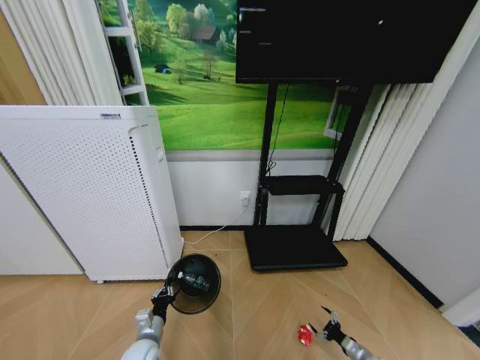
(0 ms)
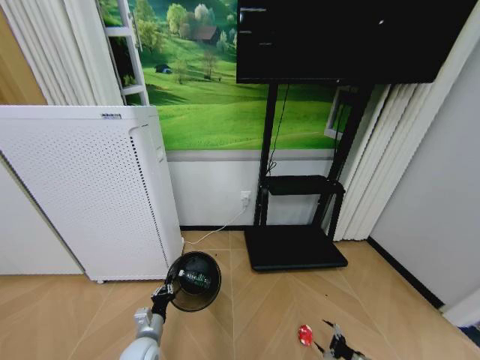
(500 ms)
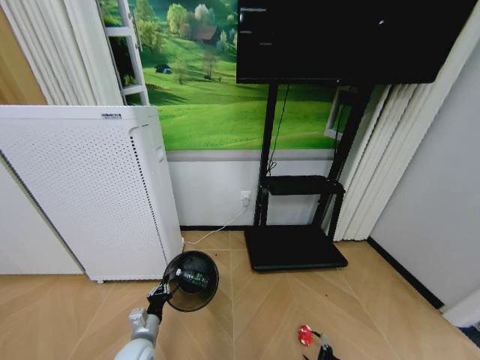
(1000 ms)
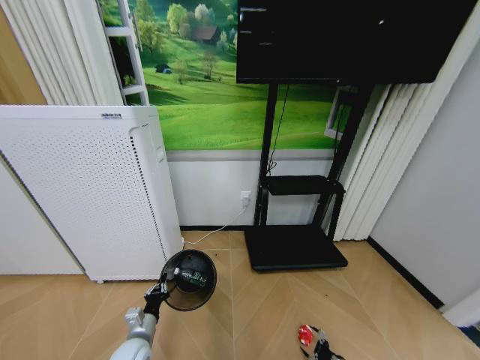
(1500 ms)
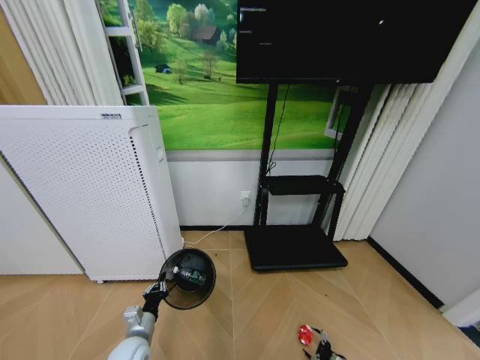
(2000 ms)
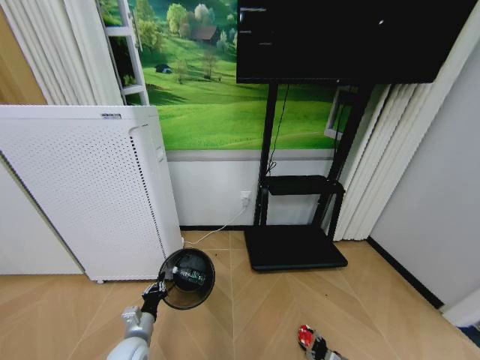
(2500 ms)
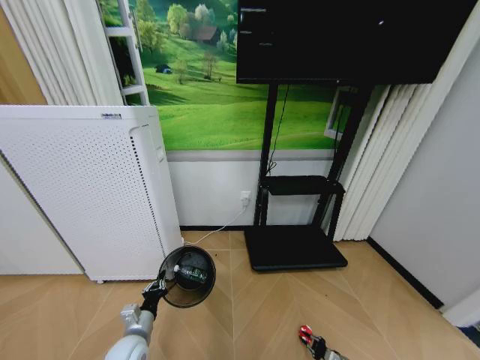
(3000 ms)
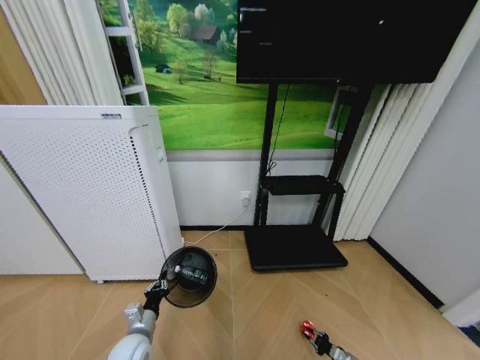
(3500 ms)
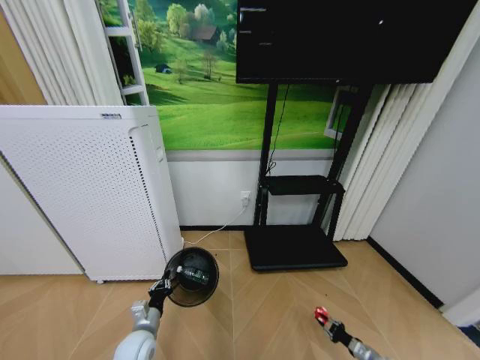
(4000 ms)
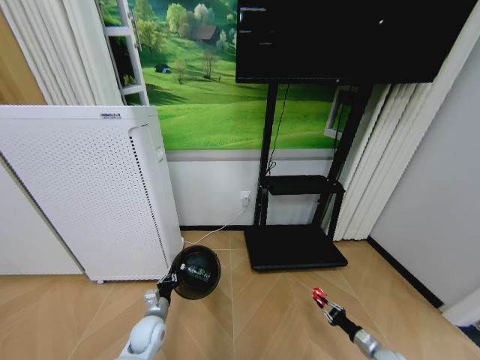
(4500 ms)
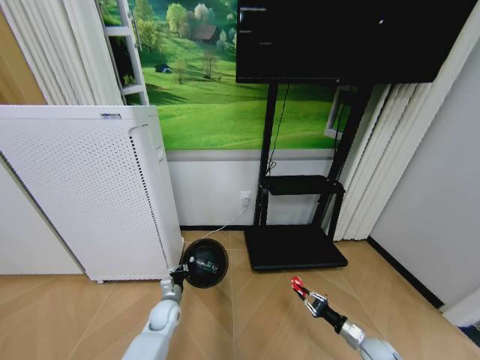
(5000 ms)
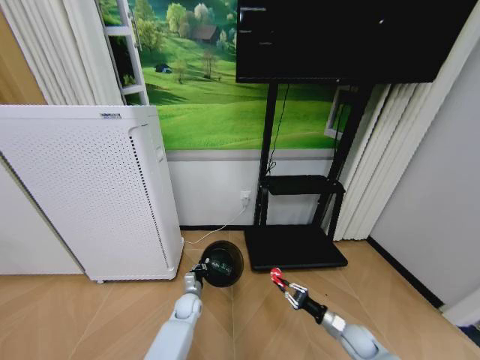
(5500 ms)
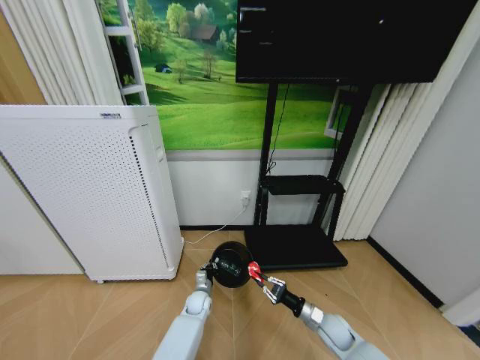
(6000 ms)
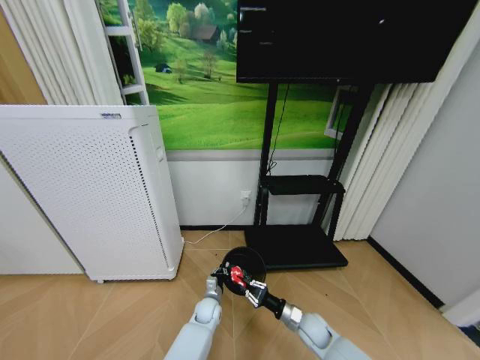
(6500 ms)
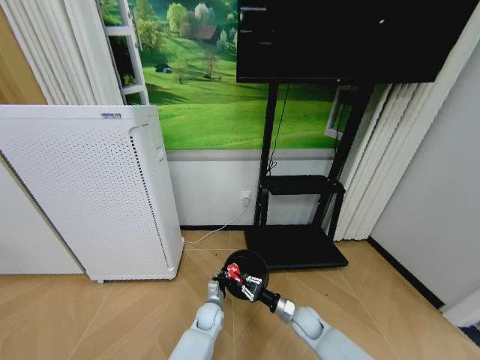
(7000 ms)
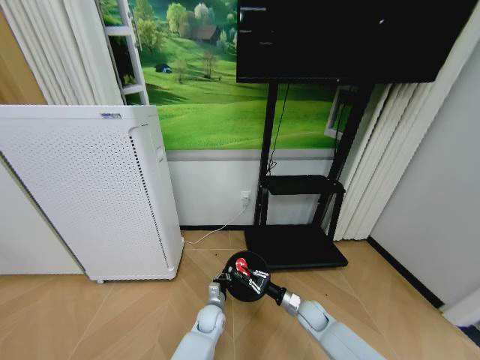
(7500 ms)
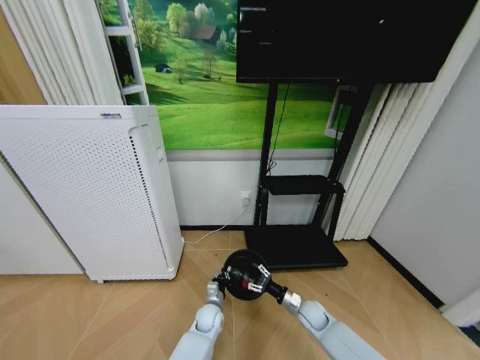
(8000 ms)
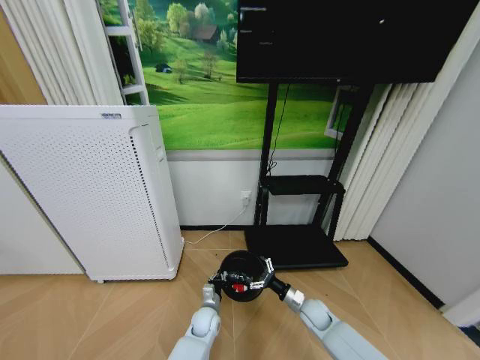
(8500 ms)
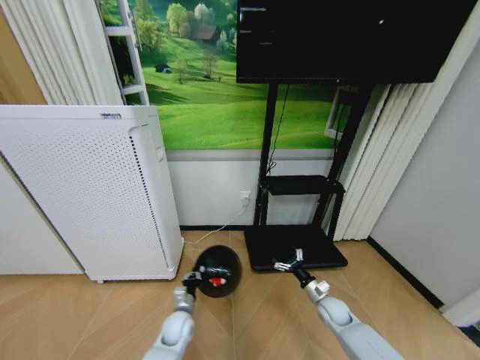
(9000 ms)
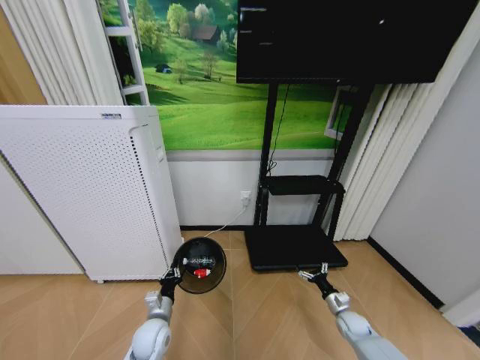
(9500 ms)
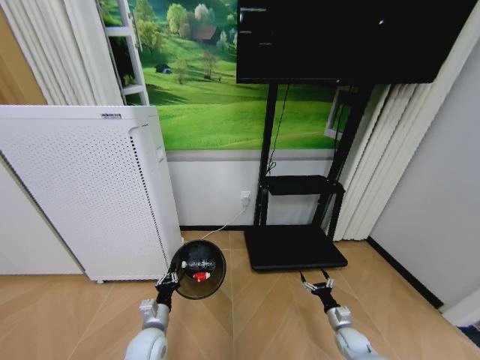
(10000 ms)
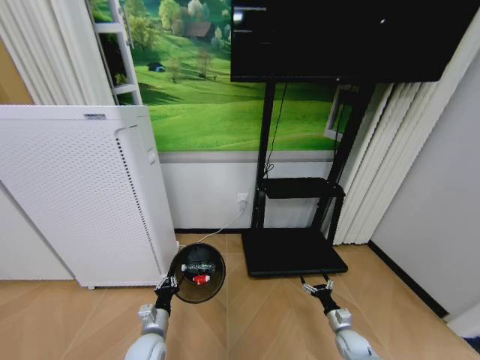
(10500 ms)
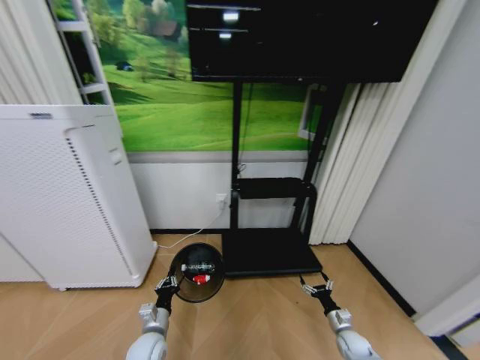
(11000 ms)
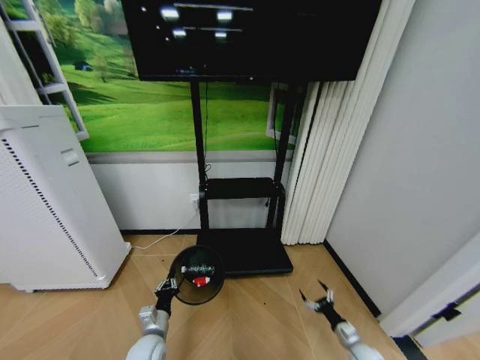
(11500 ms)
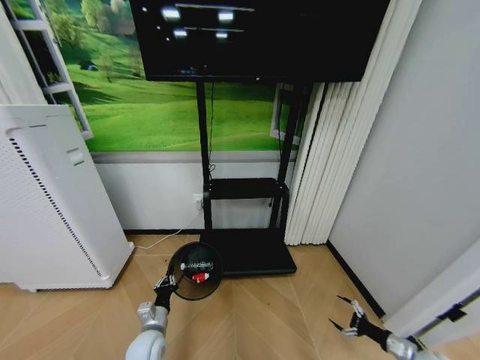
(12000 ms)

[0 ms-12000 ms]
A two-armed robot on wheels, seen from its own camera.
Task of the whole recording: Pick up the trash bin and place the garbage on the floor into it.
0 ms to 2000 ms: The right gripper shifts by roughly 5 cm.
2000 ms to 4000 ms: The right gripper heads to the right, covering approximately 5 cm, and closes its fingers.
4000 ms to 6000 ms: The left gripper moves forward, to the right and downward, approximately 25 cm. Meanwhile the right gripper goes about 25 cm to the left and upward.
6000 ms to 8000 ms: The right gripper travels forward by about 5 cm, and opens its fingers, while the left gripper travels backward by about 5 cm.
8000 ms to 10000 ms: The right gripper moves to the right, downward and backward, roughly 15 cm, and opens. Meanwhile the left gripper shifts approximately 20 cm to the left, backward and upward.
10000 ms to 12000 ms: The right gripper moves to the right, backward and upward, roughly 20 cm.

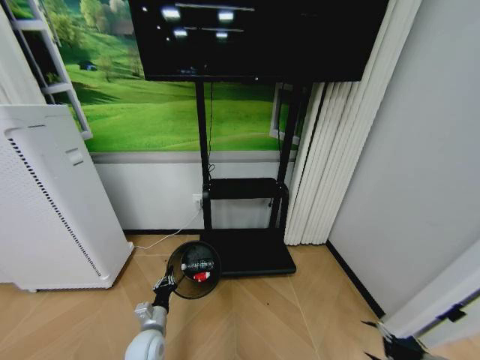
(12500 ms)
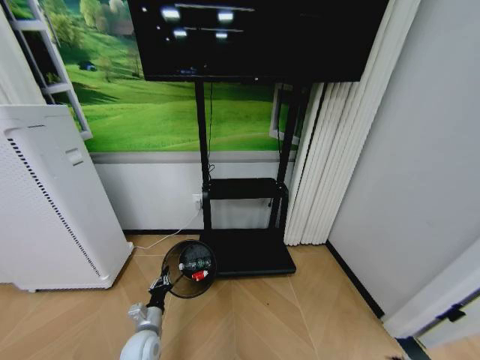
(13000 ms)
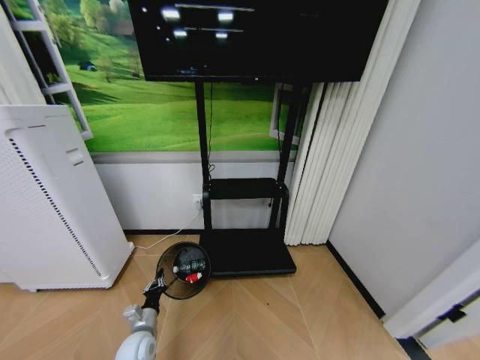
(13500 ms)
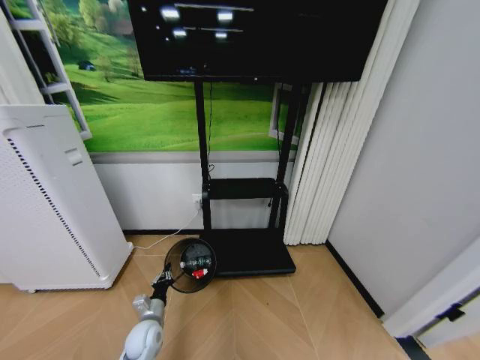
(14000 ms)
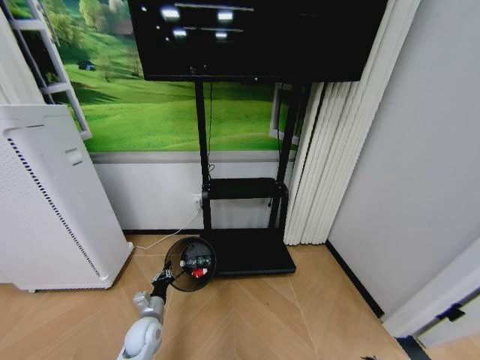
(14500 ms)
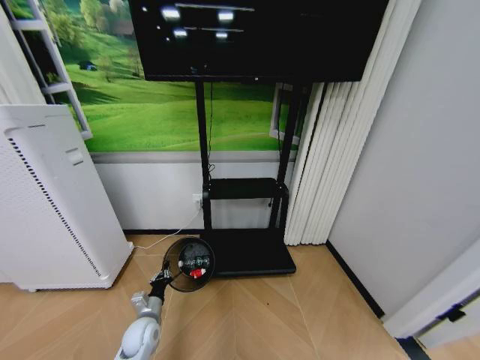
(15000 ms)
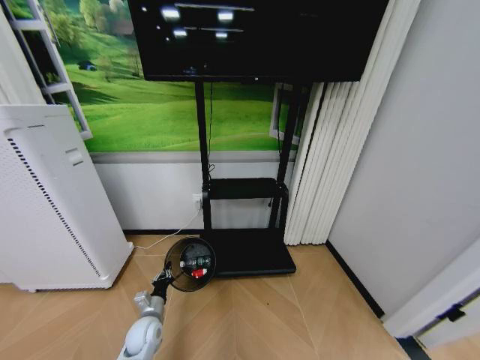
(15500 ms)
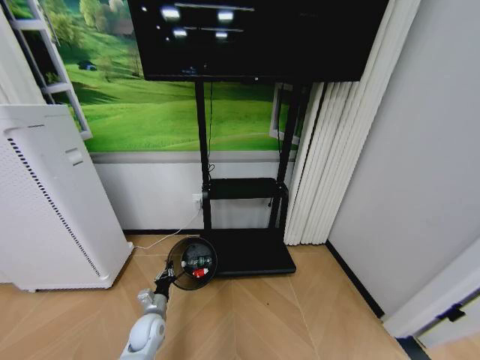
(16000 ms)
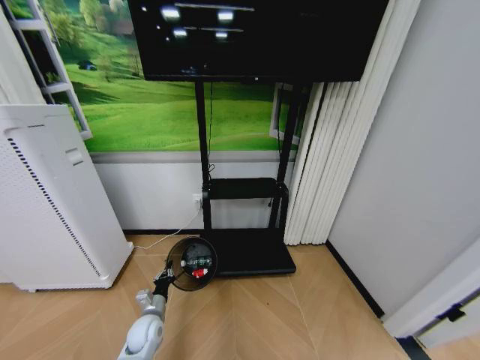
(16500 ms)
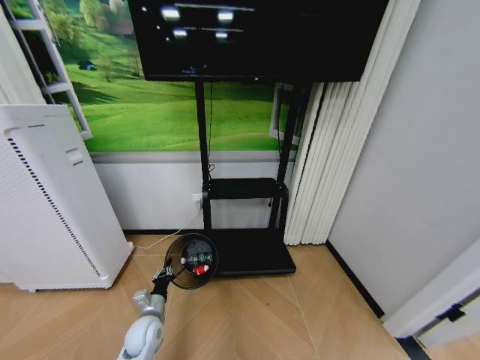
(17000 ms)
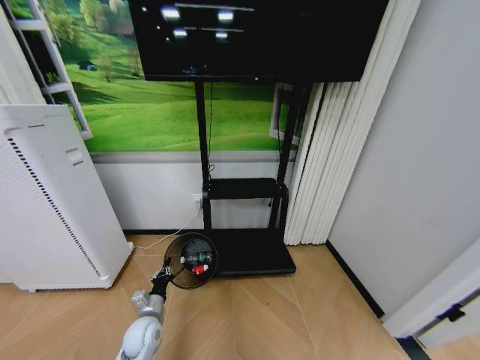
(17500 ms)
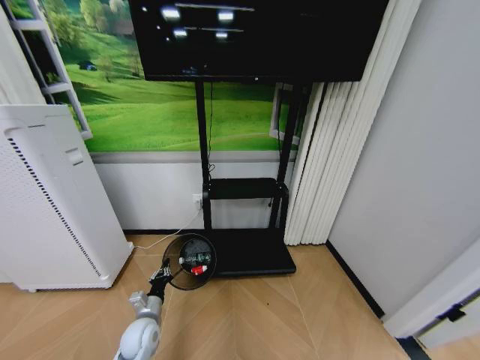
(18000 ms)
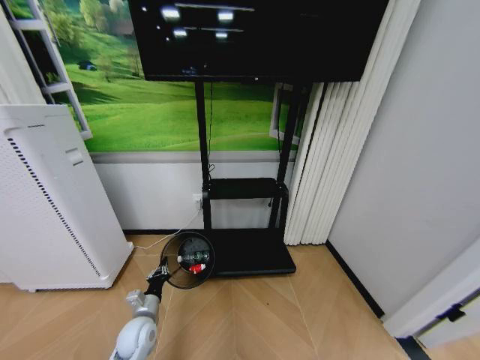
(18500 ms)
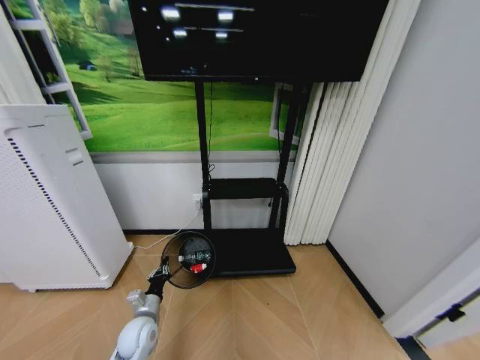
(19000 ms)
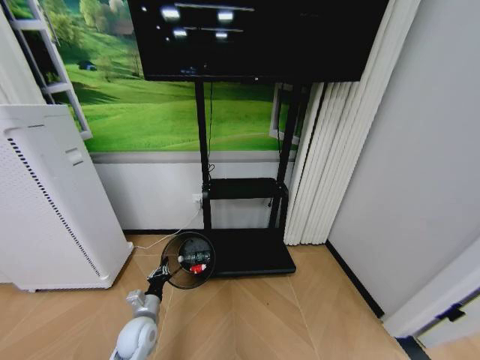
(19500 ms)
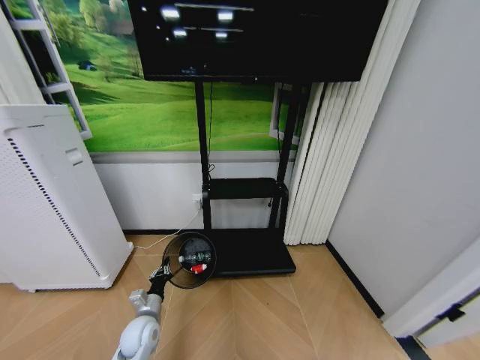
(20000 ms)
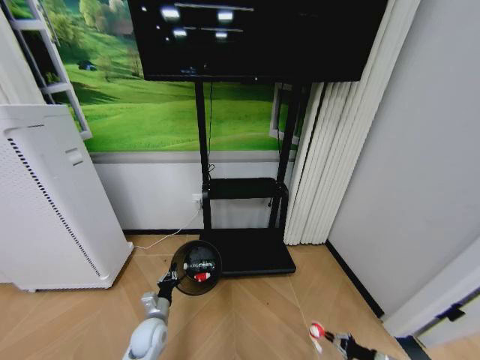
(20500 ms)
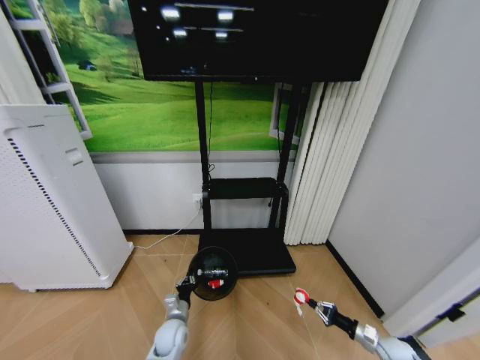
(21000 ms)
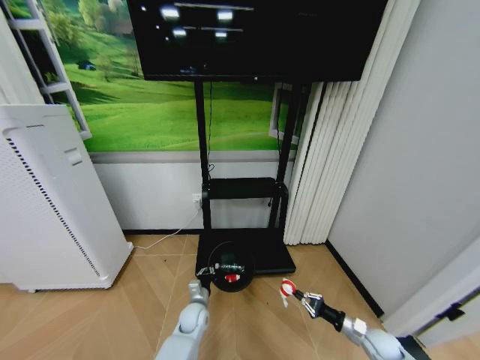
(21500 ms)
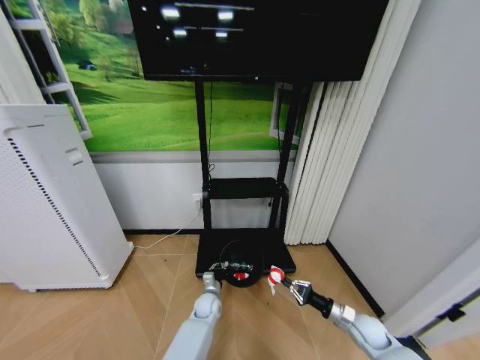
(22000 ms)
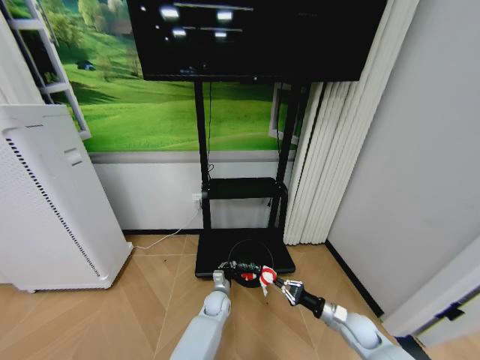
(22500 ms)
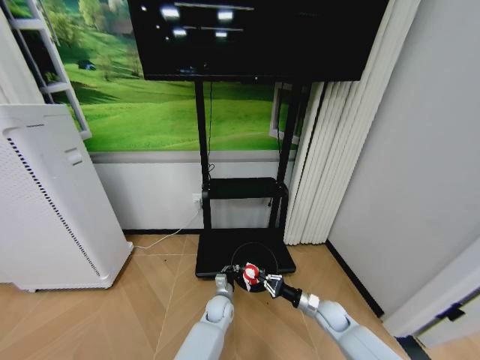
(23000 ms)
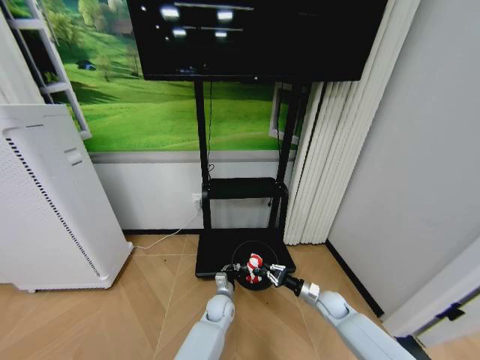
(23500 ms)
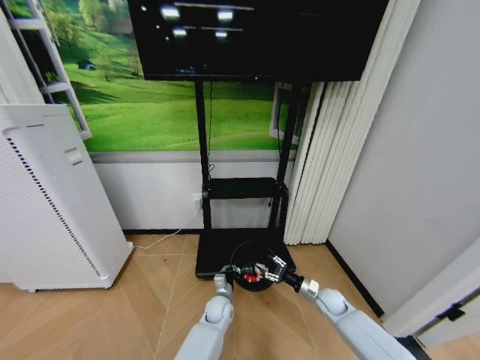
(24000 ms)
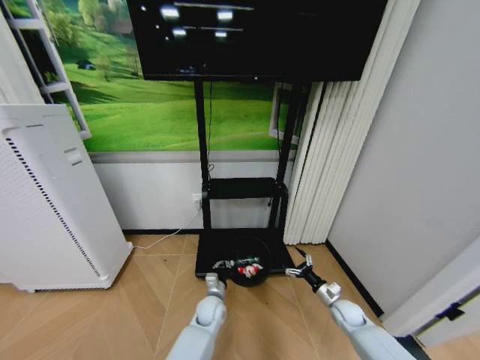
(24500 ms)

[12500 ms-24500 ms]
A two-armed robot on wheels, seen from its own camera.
Task of the whole recording: Pick up the trash bin and place the garbage on the floor into it.
12500 ms to 14500 ms: The right gripper shifts about 10 cm downward.
16500 ms to 18500 ms: The grippers stay close to where they were, moving slightly.
18500 ms to 20500 ms: The right gripper goes about 5 cm upward, and closes.
20500 ms to 22500 ms: The left gripper travels to the right and forward by about 25 cm; the right gripper shifts about 25 cm to the left, upward and forward.
22500 ms to 24500 ms: The left gripper changes place by roughly 5 cm; the right gripper moves forward, about 5 cm, and opens up.

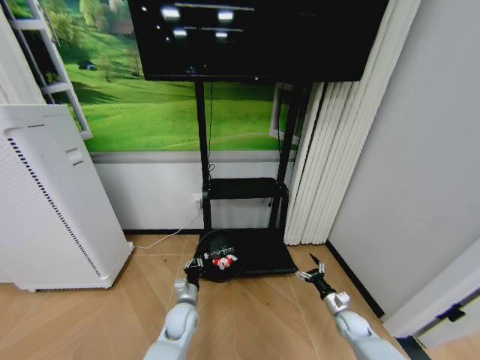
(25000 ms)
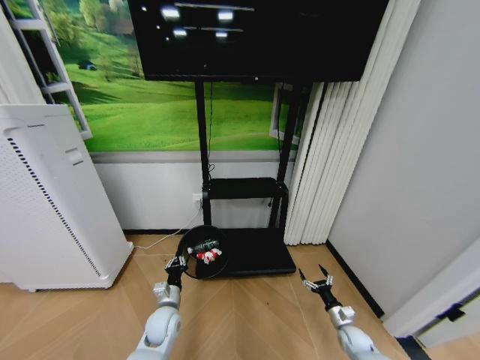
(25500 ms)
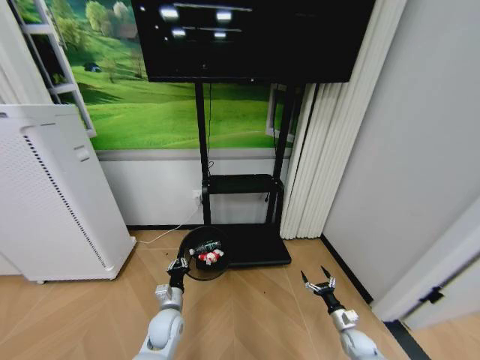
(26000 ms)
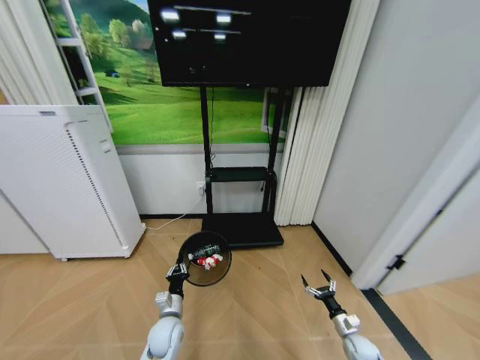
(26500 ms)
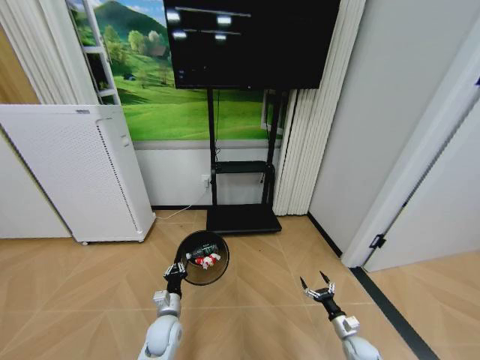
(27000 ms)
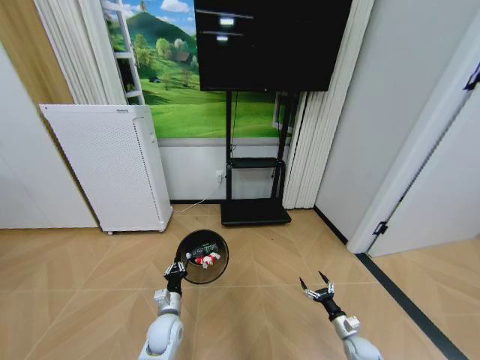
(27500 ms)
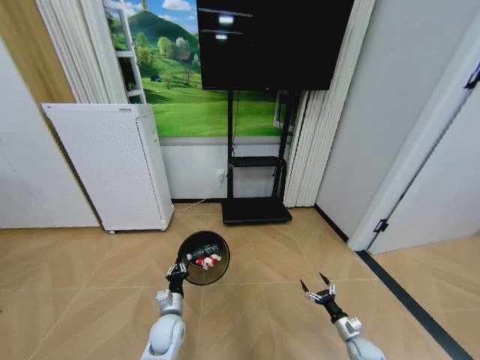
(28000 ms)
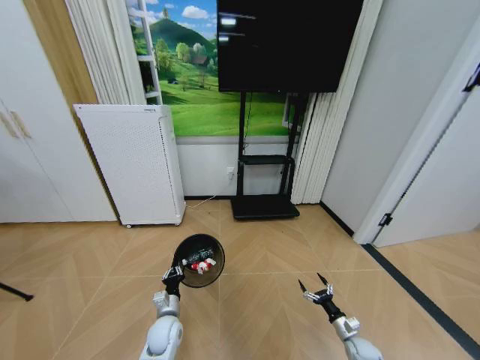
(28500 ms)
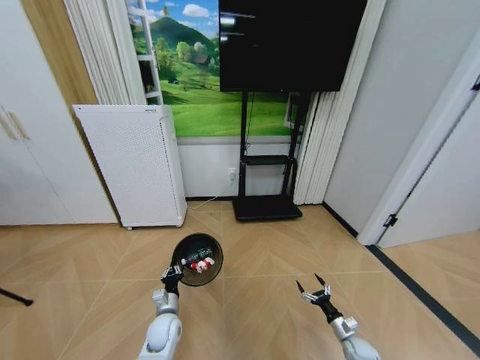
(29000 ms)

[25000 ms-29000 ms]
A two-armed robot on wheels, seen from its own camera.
Task of the whole recording: Pick up the trash bin and place the garbage on the floor into it.
25000 ms to 27000 ms: The right gripper heads downward and backward, covering about 10 cm; the left gripper shifts by some 5 cm.
